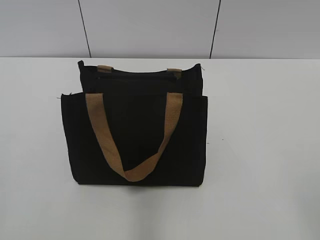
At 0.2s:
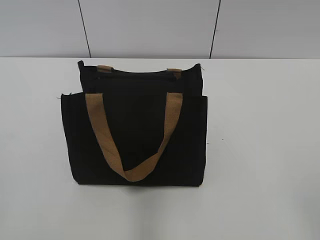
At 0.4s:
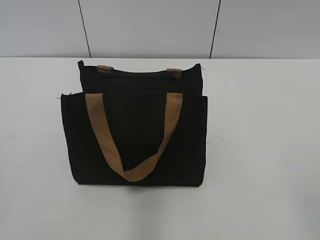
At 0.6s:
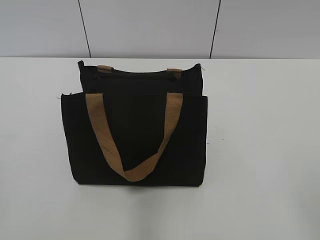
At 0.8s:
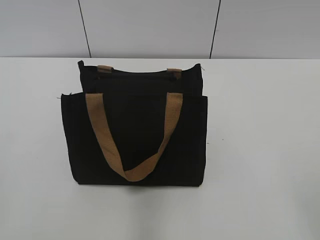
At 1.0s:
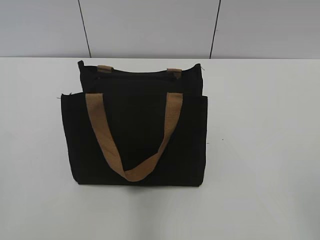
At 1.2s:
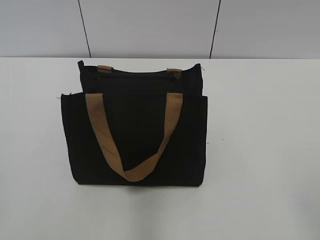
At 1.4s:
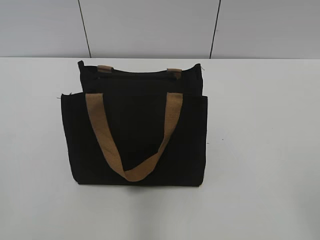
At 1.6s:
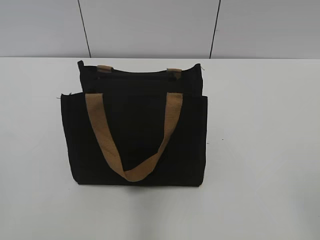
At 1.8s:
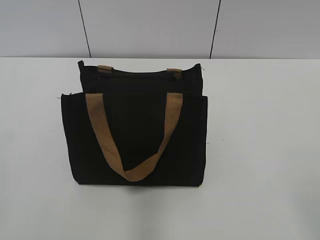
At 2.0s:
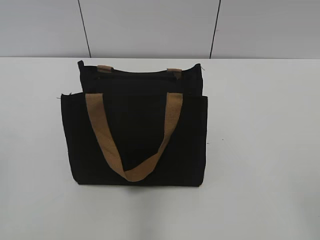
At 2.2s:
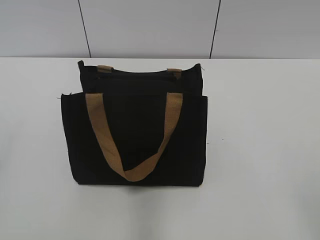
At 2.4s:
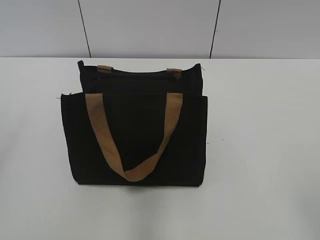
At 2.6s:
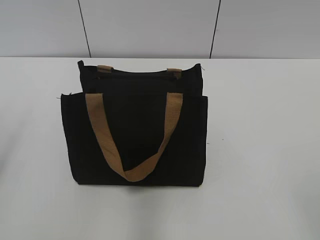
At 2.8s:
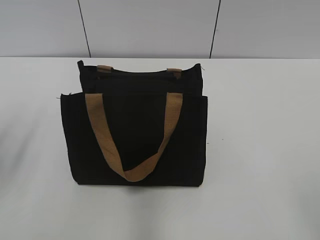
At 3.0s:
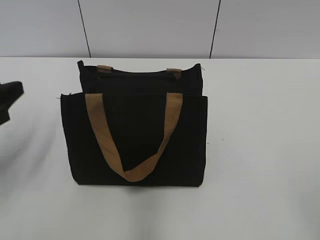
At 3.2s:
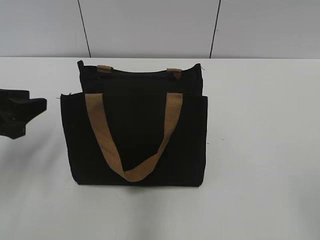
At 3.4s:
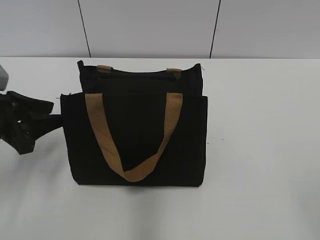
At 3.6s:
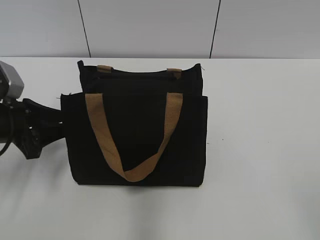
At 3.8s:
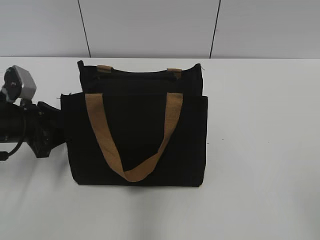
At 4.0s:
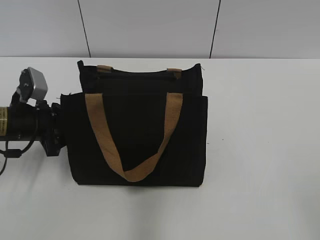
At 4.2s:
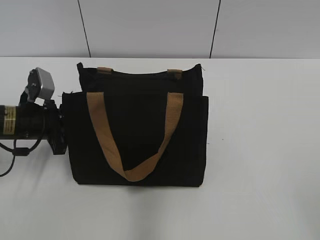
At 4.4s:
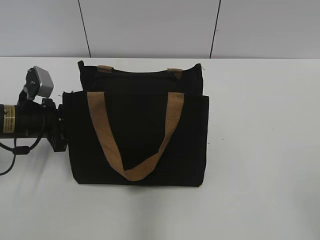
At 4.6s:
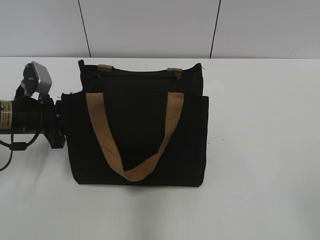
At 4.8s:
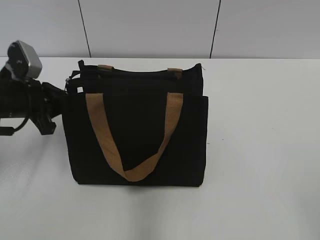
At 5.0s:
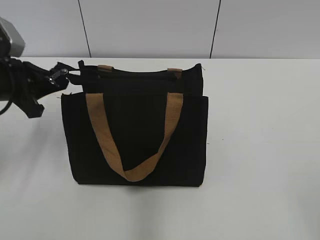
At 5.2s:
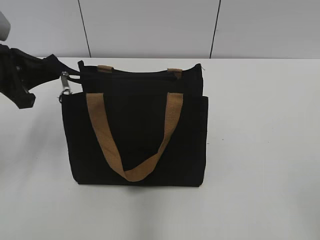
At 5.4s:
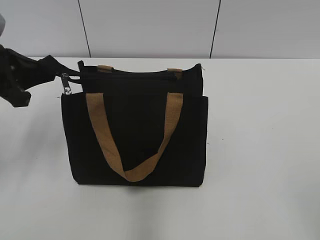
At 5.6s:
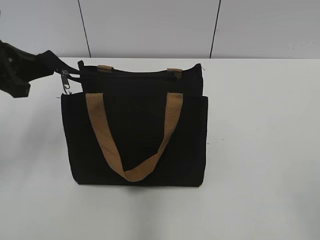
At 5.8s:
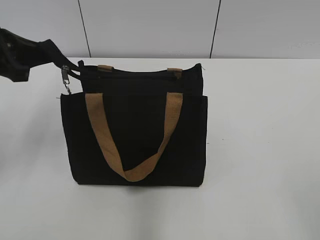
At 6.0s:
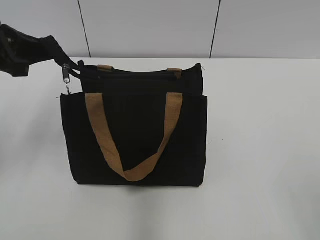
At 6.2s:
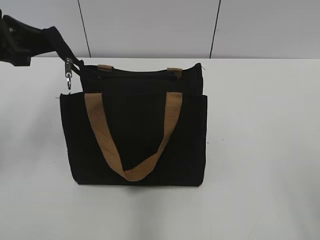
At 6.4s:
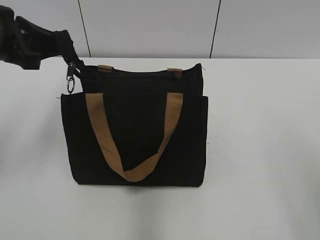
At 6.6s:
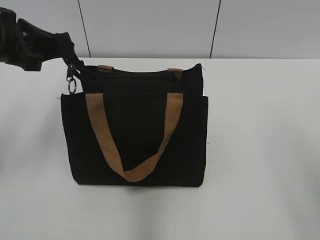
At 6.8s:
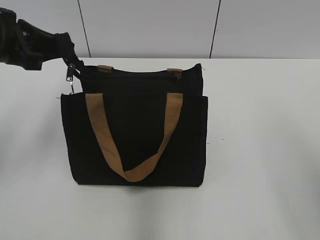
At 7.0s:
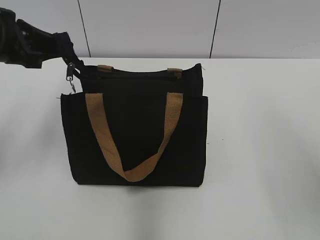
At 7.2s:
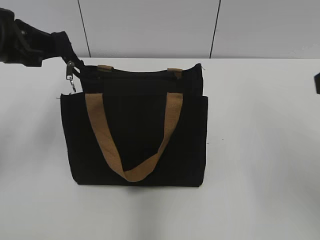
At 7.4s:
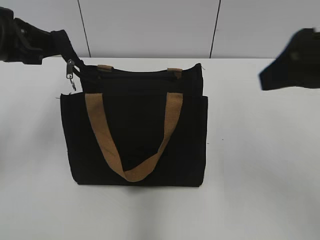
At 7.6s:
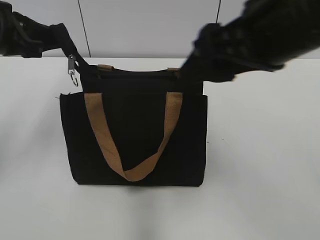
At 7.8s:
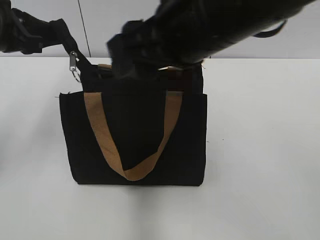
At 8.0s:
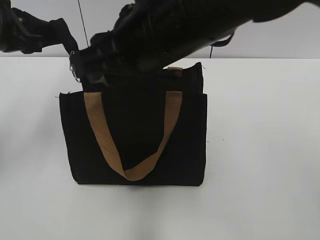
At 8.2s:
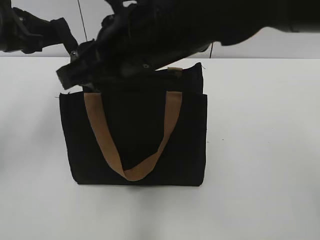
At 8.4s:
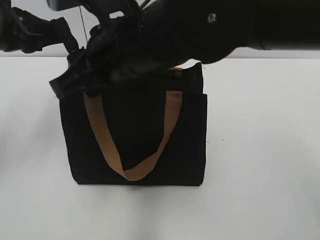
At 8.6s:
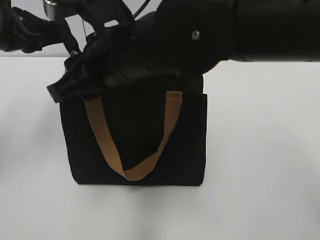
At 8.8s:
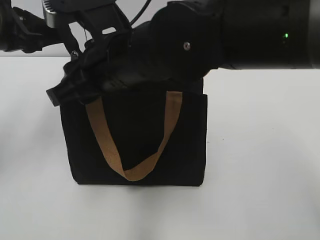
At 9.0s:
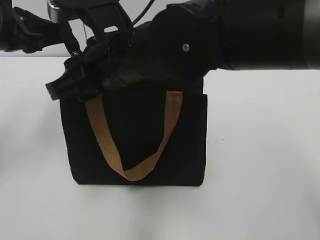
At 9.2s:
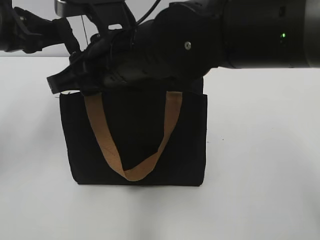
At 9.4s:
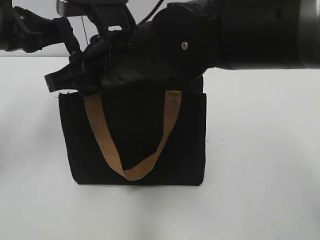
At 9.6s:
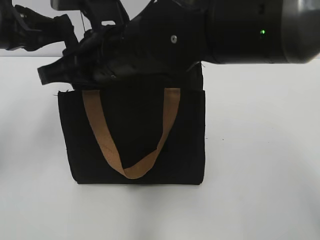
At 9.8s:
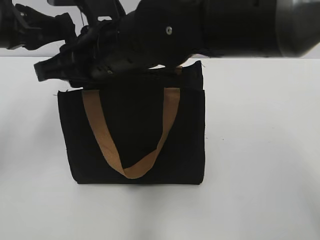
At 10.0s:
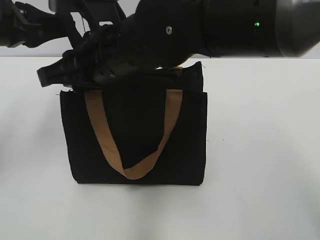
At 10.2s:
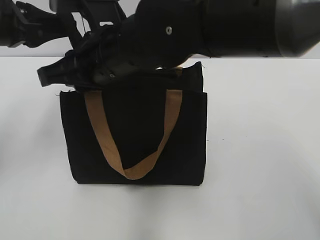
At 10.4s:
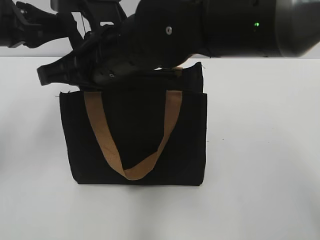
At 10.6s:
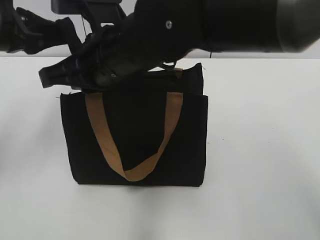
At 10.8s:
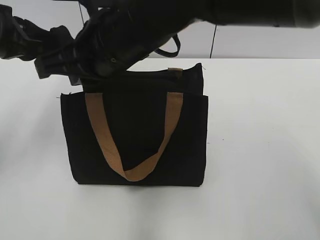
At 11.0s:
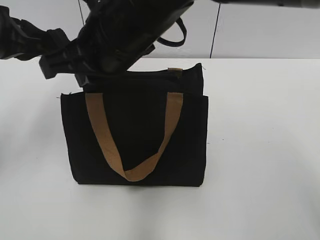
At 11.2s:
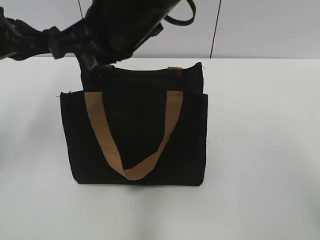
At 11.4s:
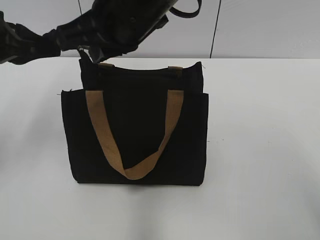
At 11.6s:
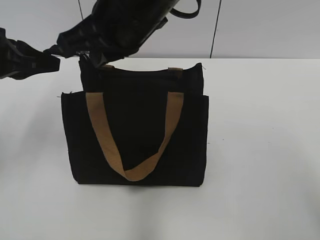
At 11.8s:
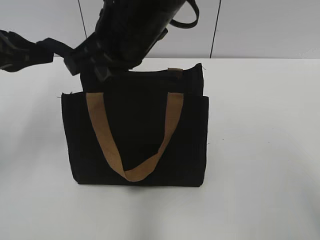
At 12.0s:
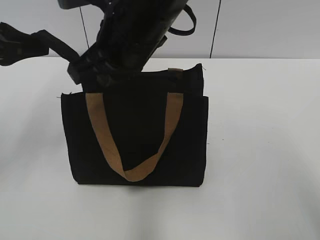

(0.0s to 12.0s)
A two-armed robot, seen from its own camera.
1.6s - 3.0s: The left gripper heads forward, covering some 20 cm.
3.0s - 4.4s: The left gripper shifts some 15 cm forward, downward and to the right, and closes up.
4.4s - 6.0s: The left gripper travels upward by some 15 cm.
6.0s - 7.6s: The right gripper goes roughly 25 cm forward and to the left.
7.6s - 9.0s: The right gripper is displaced to the left and downward by about 15 cm, and closes.
9.0s - 10.4s: The right gripper closes up.

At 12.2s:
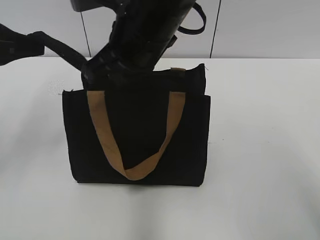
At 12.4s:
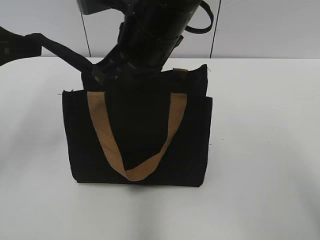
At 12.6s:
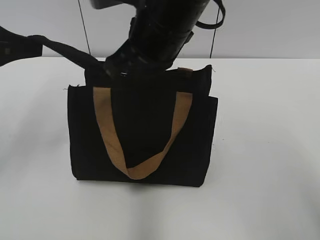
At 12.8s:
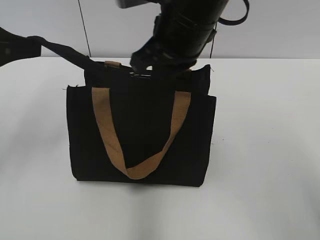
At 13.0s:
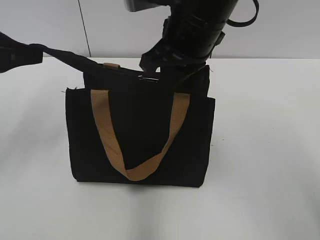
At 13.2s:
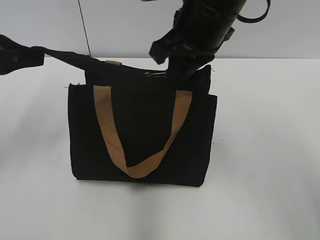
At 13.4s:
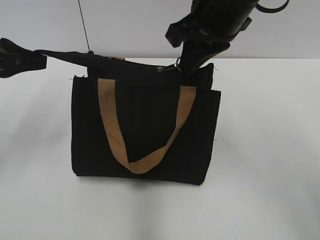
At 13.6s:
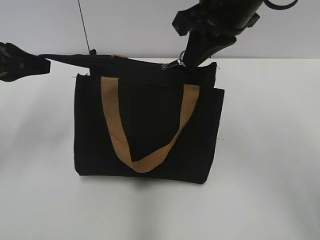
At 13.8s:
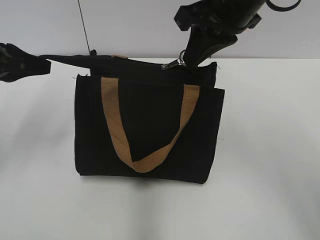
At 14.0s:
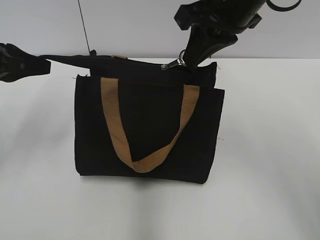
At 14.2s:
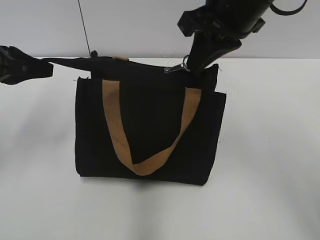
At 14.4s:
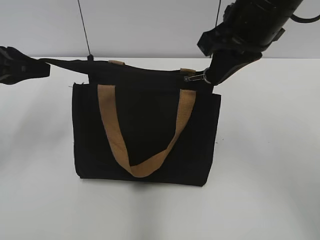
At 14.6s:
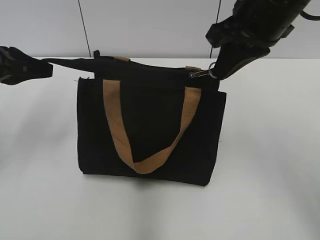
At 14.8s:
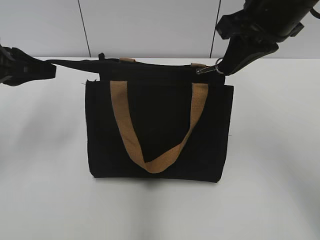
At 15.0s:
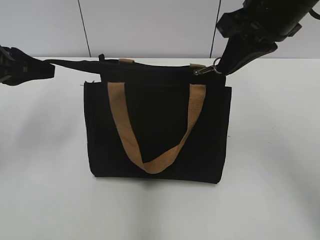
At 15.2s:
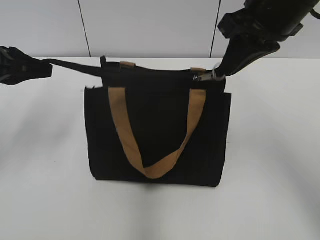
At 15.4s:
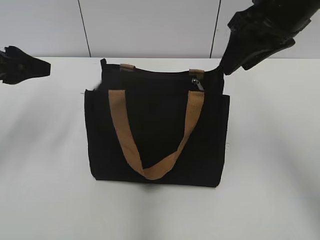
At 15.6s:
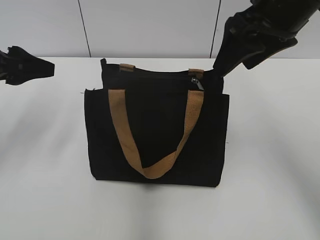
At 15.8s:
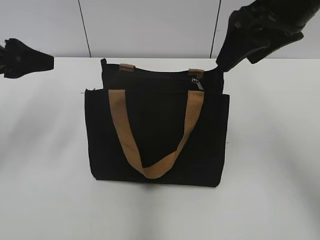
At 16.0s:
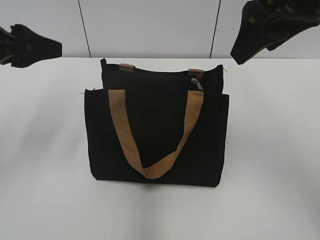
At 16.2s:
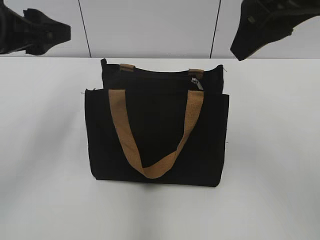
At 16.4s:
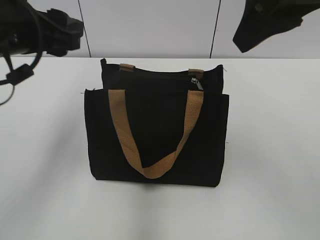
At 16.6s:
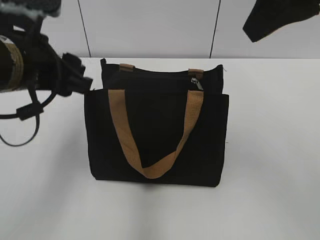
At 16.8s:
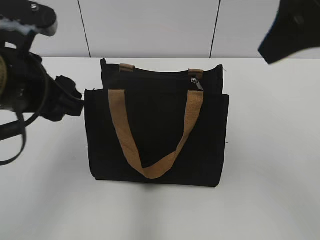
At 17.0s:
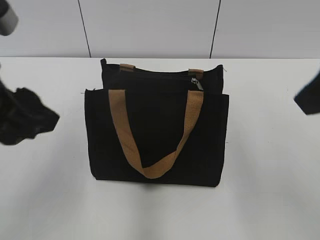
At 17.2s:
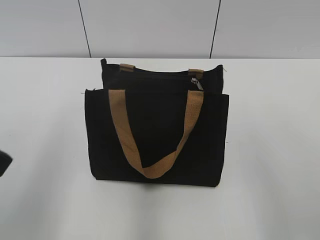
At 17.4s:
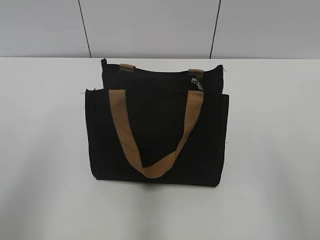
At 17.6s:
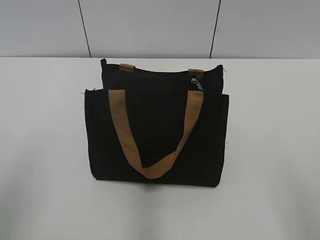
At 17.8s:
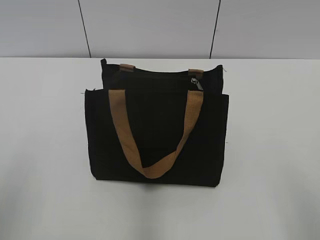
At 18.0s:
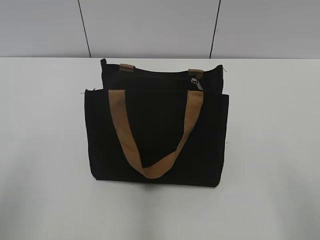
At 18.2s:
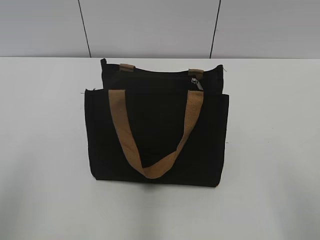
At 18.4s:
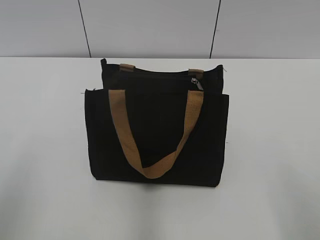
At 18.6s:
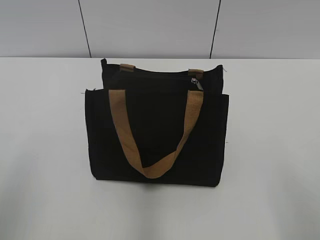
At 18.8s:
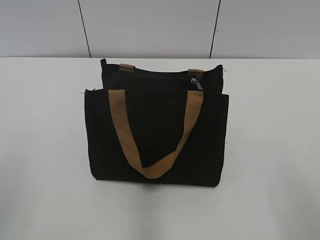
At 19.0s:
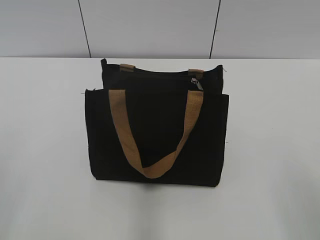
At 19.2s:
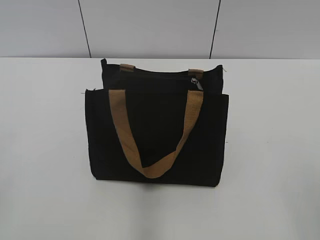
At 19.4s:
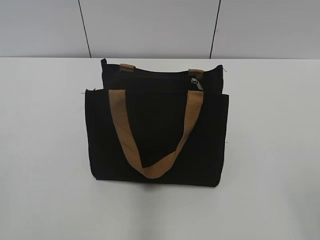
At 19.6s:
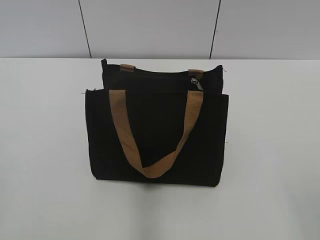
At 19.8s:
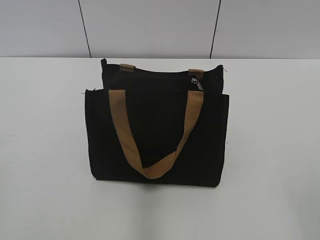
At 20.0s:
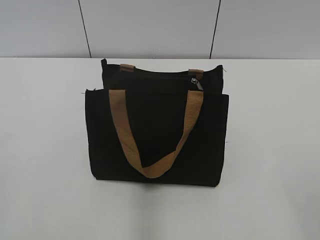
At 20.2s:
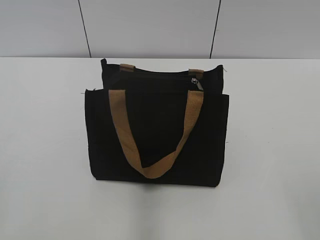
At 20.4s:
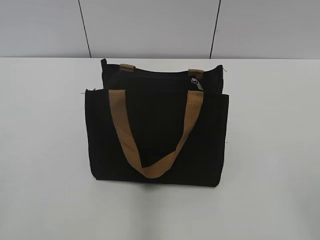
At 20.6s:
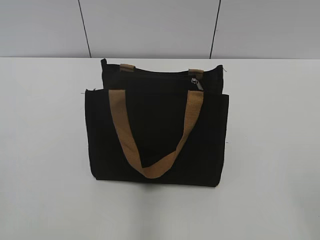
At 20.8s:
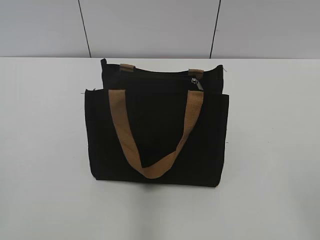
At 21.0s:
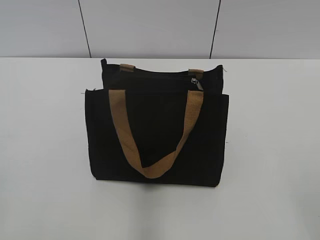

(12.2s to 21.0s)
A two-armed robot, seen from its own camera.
Step, 12.2s - 15.0s: Zip up the bag with your right hand.
12.2s - 13.6s: The right gripper goes some 10 cm to the right.
13.6s - 15.2s: The right gripper heads to the right, covering approximately 5 cm.
15.2s - 16.6s: The left gripper is displaced to the right and backward by approximately 10 cm, and opens its fingers, while the right gripper is displaced upward and backward by roughly 10 cm, and opens its fingers.
16.6s - 18.0s: The right gripper is displaced backward, downward and to the right by approximately 25 cm, while the left gripper moves backward and to the left, roughly 20 cm.
18.0s - 19.6s: The left gripper moves backward, some 5 cm.

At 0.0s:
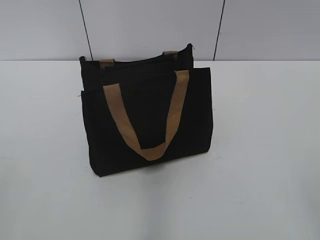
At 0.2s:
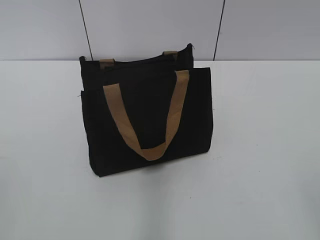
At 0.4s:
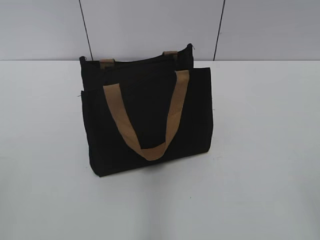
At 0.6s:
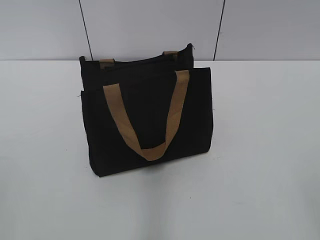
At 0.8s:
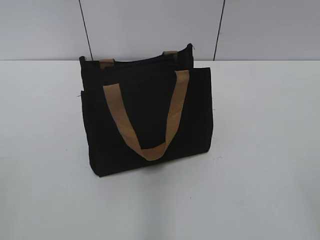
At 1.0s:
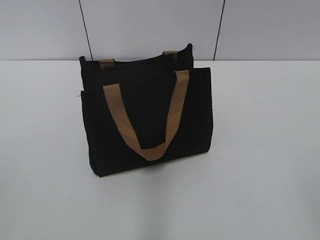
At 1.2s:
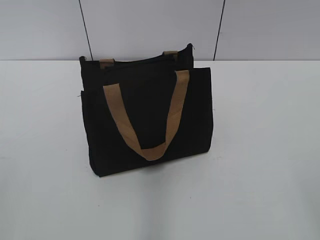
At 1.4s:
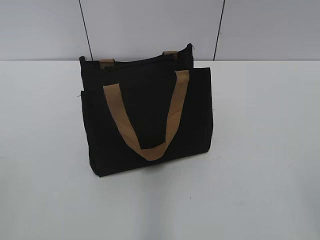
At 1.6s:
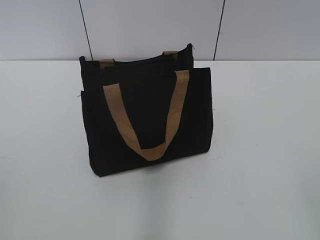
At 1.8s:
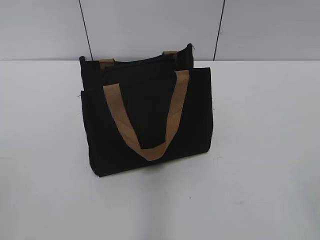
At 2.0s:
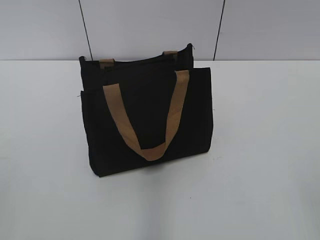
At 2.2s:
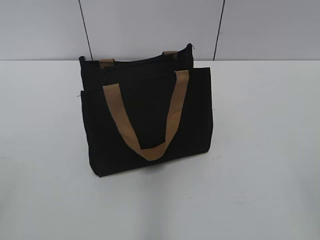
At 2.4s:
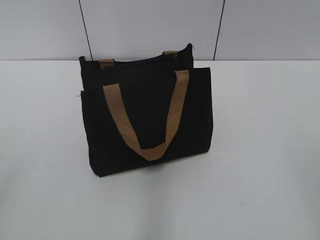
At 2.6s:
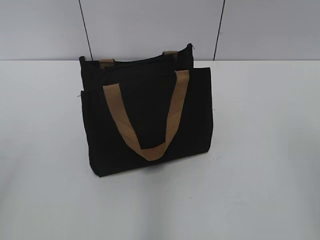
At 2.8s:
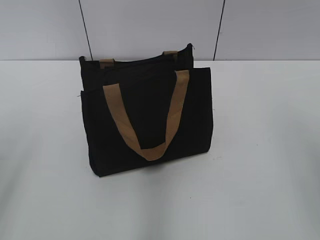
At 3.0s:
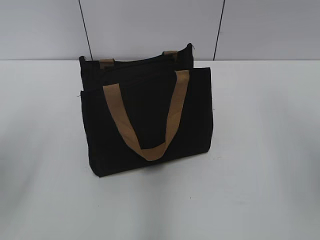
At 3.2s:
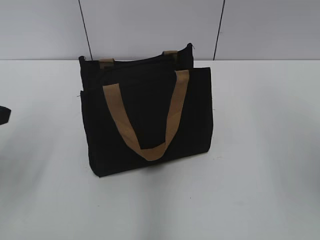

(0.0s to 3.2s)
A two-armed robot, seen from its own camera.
1.6s - 3.2s: The left gripper travels forward by about 20 cm, and opens up.
